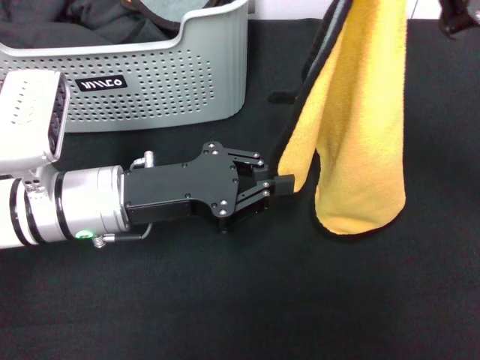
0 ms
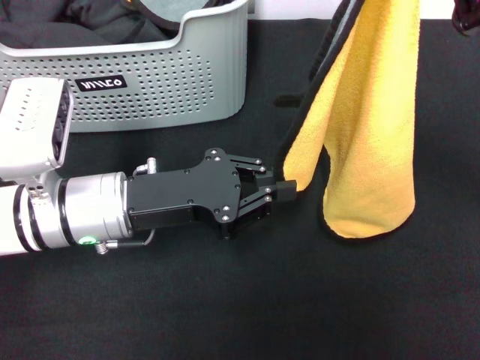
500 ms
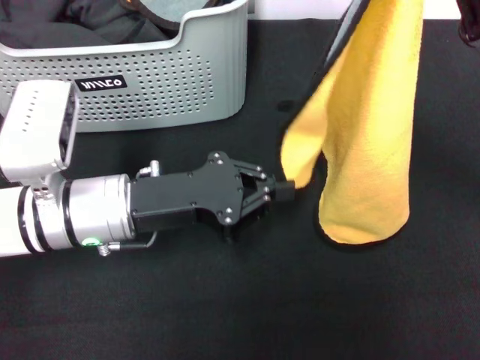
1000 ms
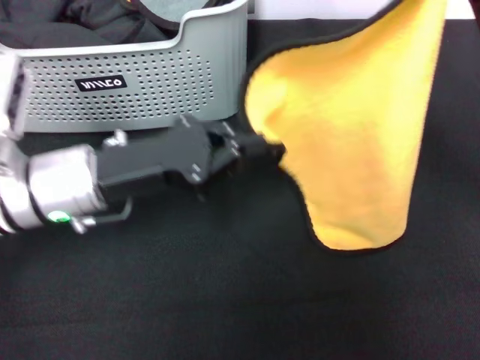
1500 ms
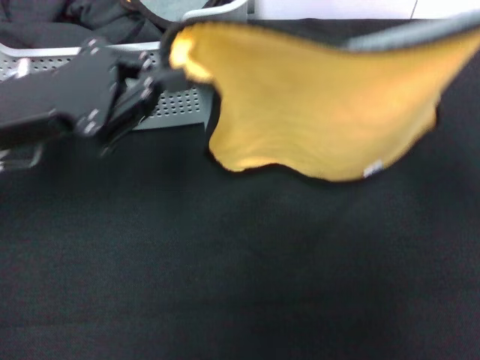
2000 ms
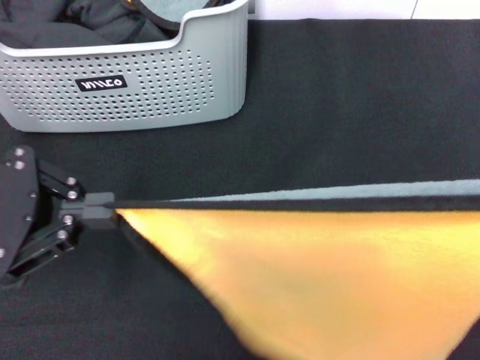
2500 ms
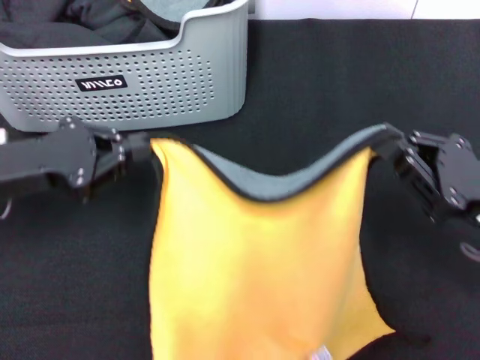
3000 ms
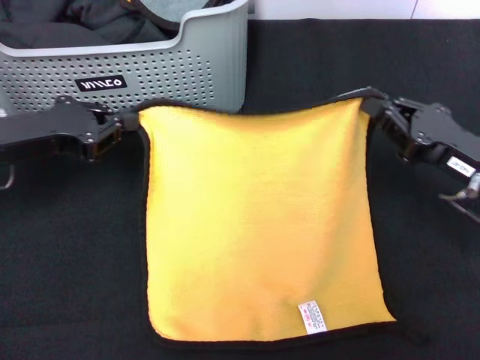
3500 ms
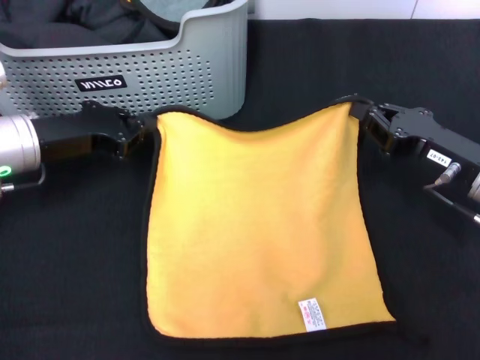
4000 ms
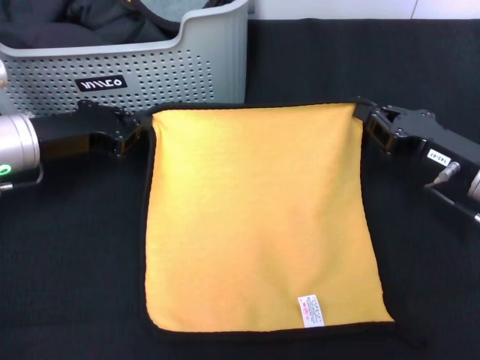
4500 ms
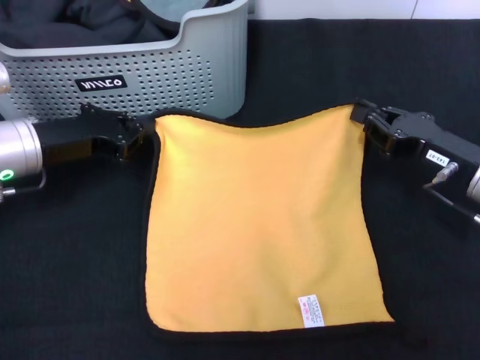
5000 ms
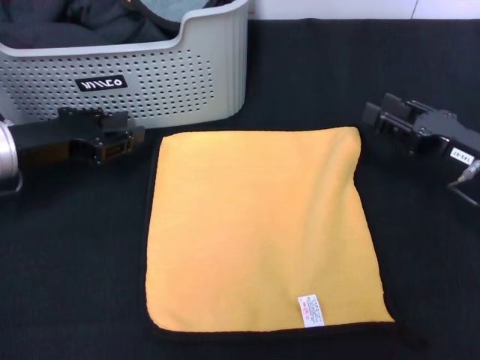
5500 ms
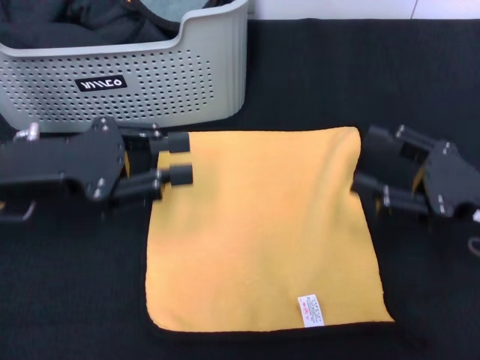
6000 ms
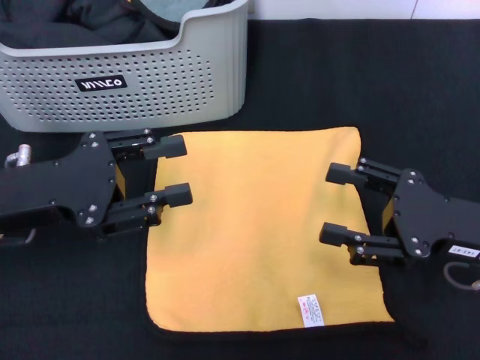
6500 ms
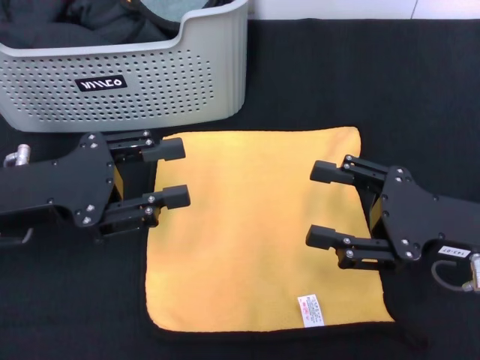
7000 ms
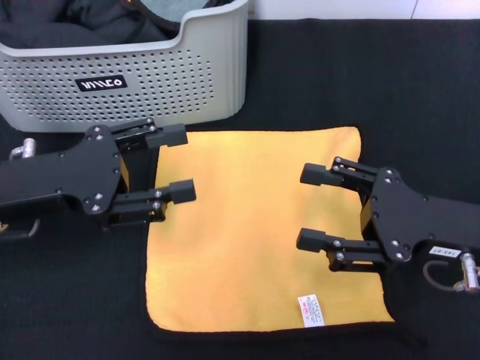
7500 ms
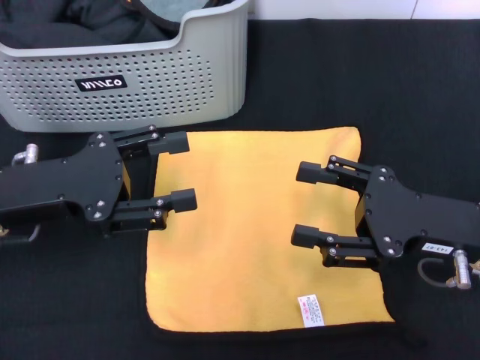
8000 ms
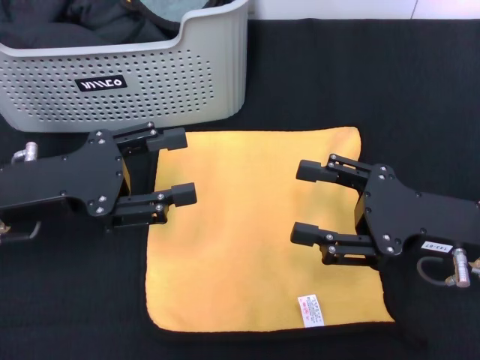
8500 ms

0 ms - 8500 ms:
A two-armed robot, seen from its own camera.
Task of the whole recording: pick up the towel from the storage box and lay it flat on the black tablecloth.
Step, 0 ms - 5500 ms: Spread the towel flat with the right gripper.
0 ms - 2000 ms: The right gripper is displaced to the right by roughly 5 cm. The left gripper heads to the left and upward, covering about 10 cm.
2000 ms - 4000 ms: The right gripper is displaced downward and forward by approximately 10 cm; the left gripper shifts roughly 10 cm downward.
4000 ms - 6500 ms: The two grippers go roughly 5 cm backward. The right gripper opens; the left gripper opens up.
6500 ms - 8500 ms: The grippers stay close to where they were, moving slightly.
